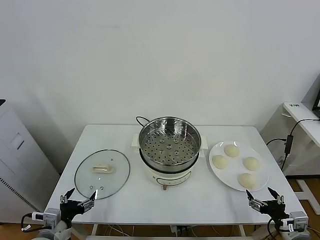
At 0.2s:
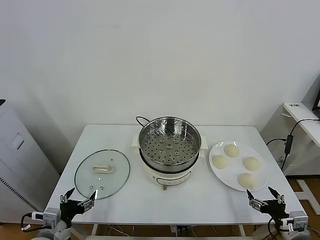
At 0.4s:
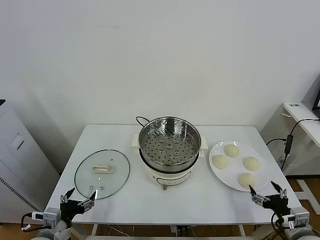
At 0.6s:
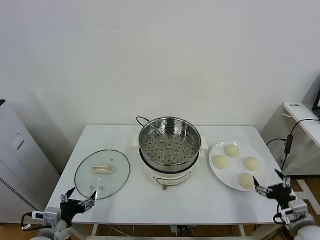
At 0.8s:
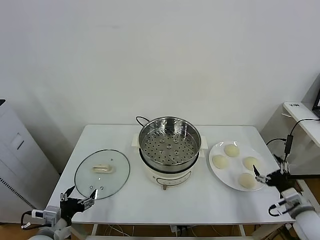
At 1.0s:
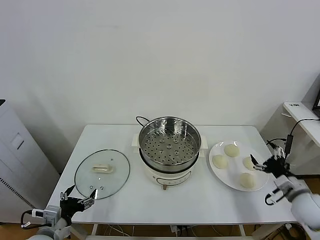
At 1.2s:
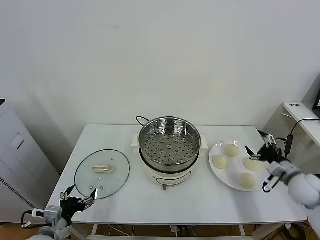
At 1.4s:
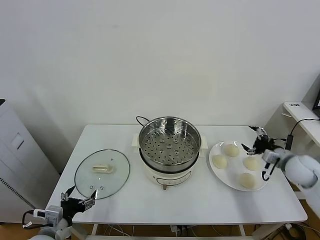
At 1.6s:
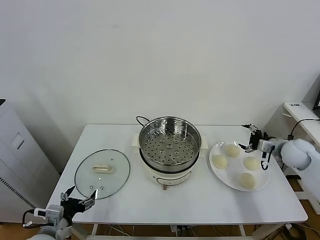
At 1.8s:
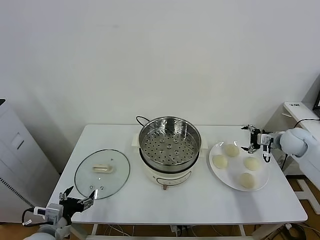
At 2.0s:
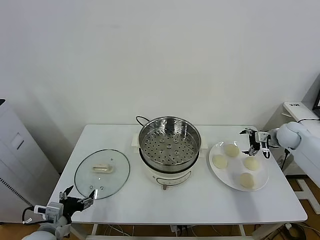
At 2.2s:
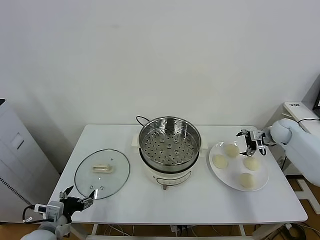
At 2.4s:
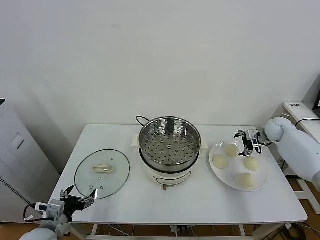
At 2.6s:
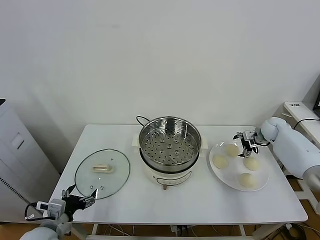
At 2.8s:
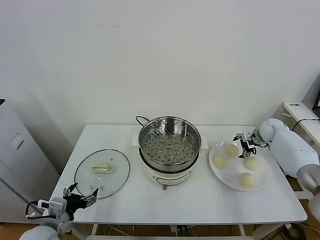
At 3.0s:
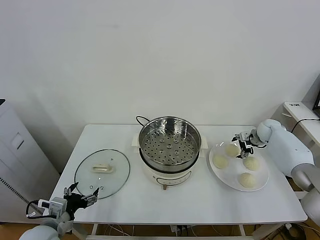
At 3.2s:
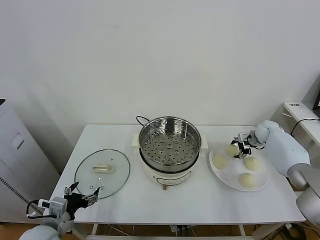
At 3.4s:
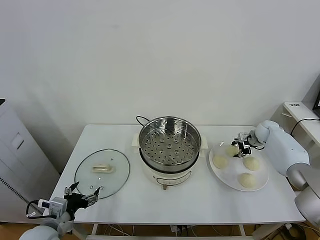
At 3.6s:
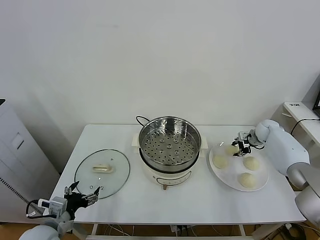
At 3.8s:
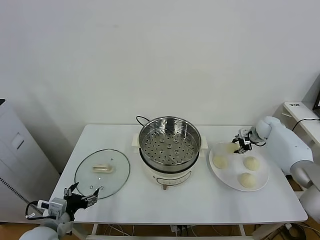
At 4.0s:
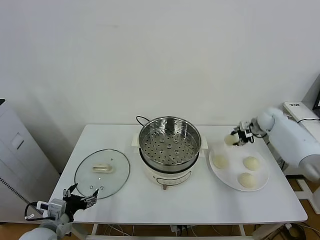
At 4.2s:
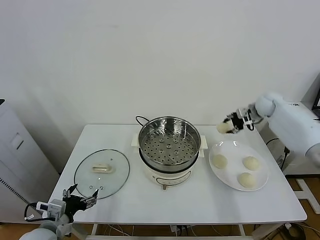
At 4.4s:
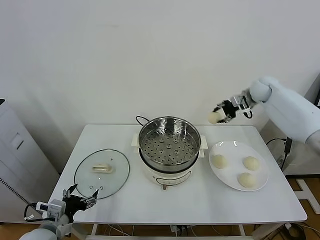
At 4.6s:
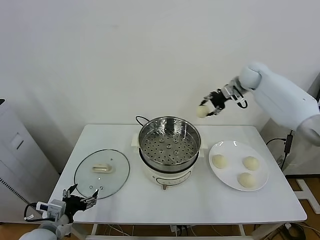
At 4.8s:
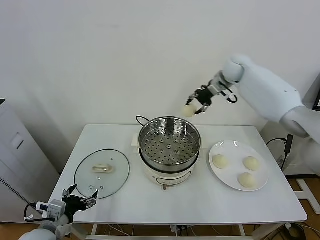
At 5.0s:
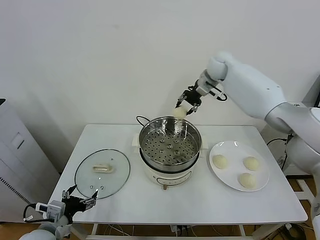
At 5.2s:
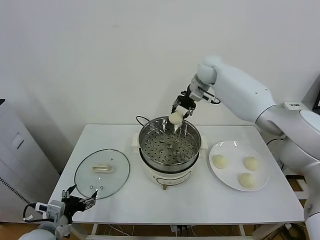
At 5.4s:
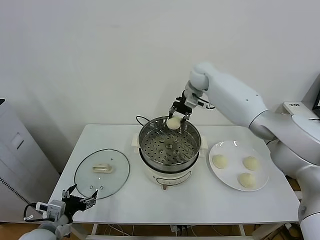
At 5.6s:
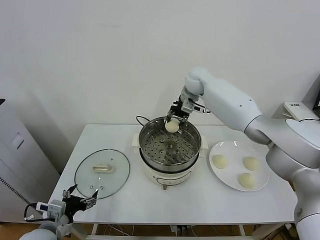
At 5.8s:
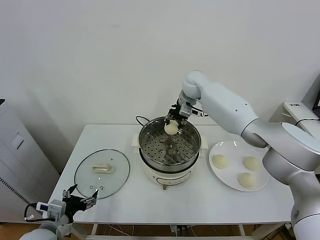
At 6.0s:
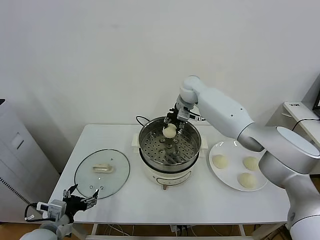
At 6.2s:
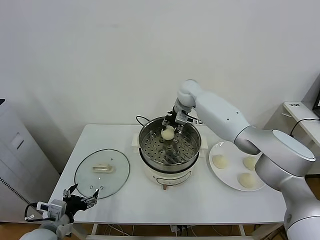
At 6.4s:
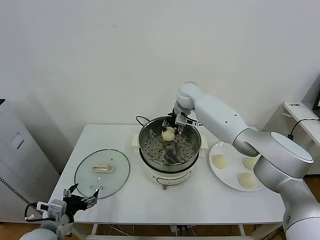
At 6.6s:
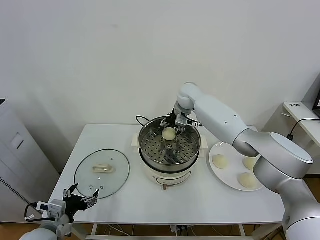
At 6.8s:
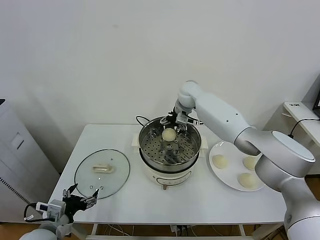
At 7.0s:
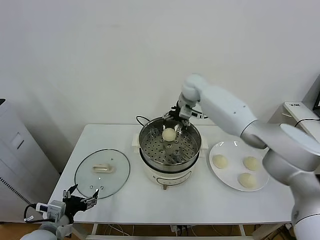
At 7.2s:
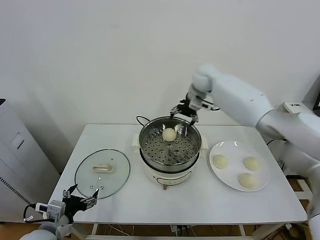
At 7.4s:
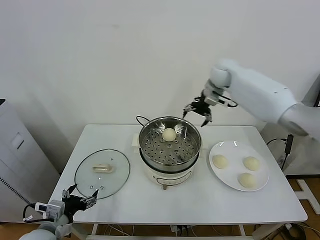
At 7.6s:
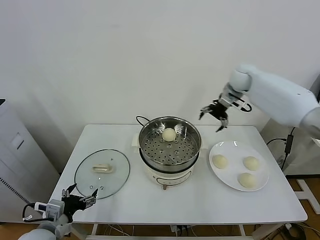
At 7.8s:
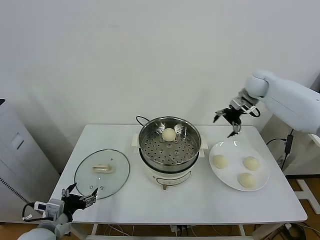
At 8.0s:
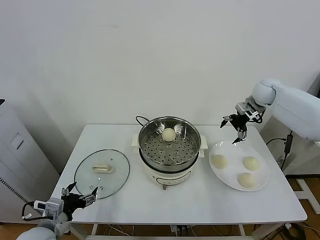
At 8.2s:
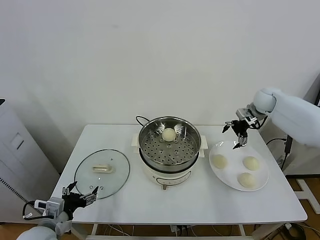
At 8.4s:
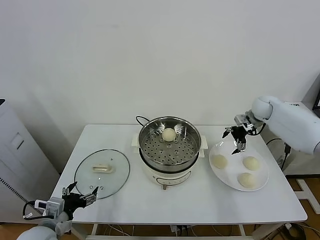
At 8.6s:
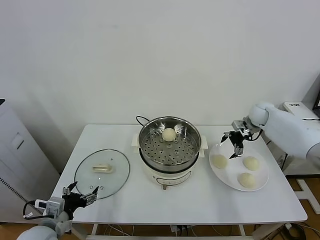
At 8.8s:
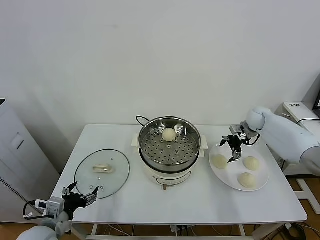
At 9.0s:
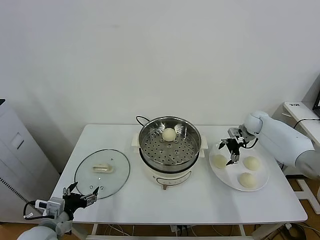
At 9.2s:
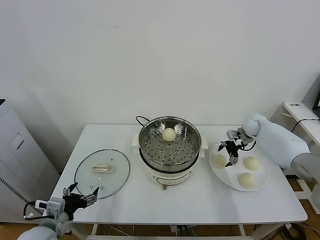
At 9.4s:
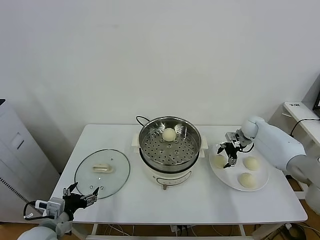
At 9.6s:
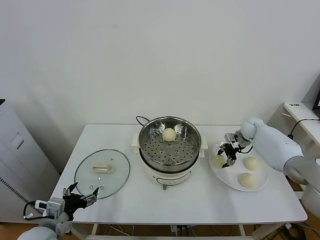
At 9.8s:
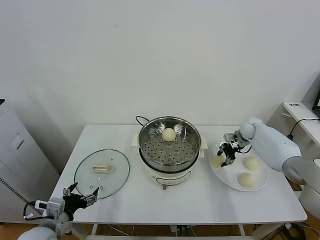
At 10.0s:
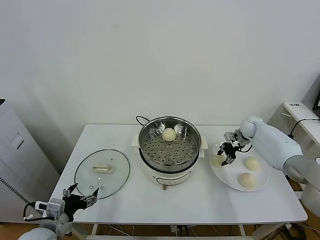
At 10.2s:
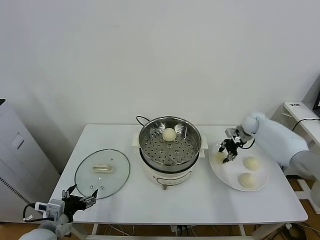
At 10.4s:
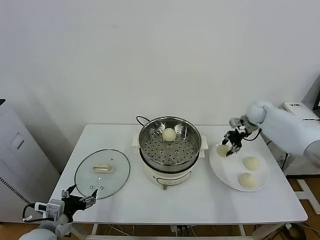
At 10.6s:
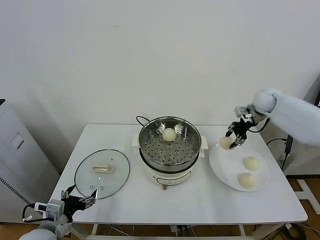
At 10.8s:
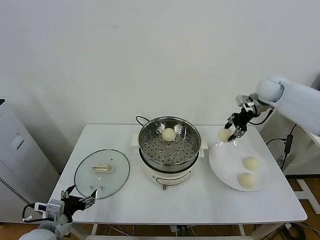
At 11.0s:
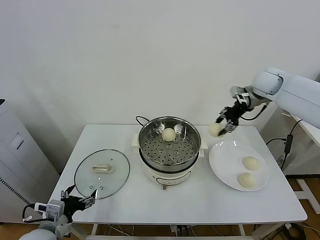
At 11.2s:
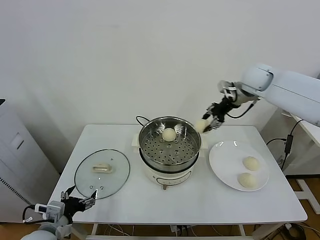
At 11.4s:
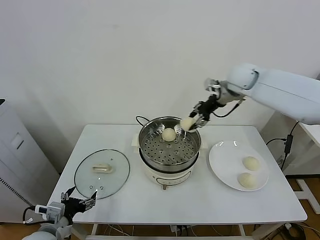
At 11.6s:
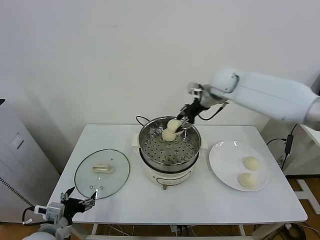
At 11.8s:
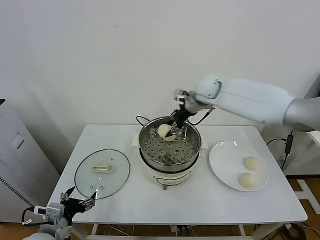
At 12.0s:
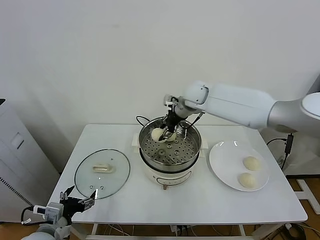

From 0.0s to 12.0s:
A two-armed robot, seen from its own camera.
Task of the whole recording: take steamed baozi put them in steamer.
Step, from 0.0s to 3.2s: Grasp the baozi in the plate with right gripper.
Step, from 3.4s to 6.8s: Place the baozi on the steamer with right gripper.
Step, from 7.0s to 9.4s: Grasp the baozi in the plate with right gripper.
From 1.6s to 3.0s: The right gripper goes approximately 15 cm forward and downward, and closes up.
From 3.0s to 4.4s: The right gripper moves upward and to the left, some 25 cm, and closes its fingers.
From 4.4s to 6.0s: The right gripper is displaced to the left by about 20 cm.
From 6.0s to 7.6s: The right gripper moves to the right, approximately 25 cm, and opens its fingers.
From 7.6s to 9.0s: The right gripper heads downward, covering roughly 20 cm.
From 9.0s to 10.4s: The right gripper moves upward, some 10 cm, and closes its fingers.
From 10.4s to 12.0s: The right gripper shifts roughly 30 cm to the left.

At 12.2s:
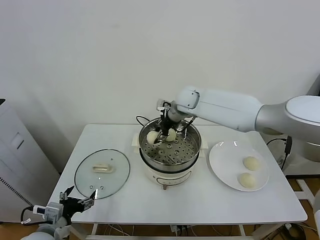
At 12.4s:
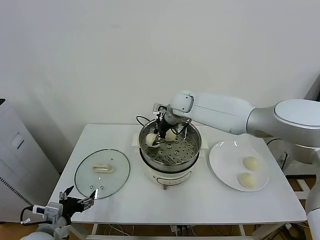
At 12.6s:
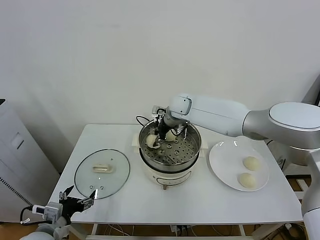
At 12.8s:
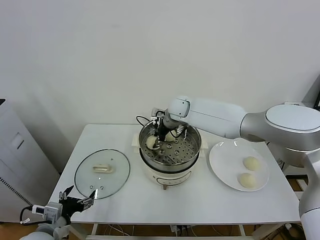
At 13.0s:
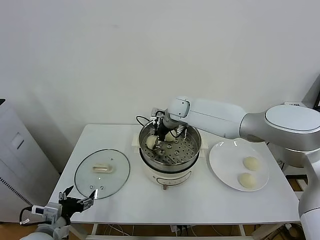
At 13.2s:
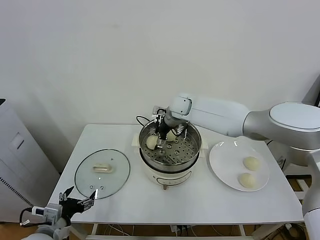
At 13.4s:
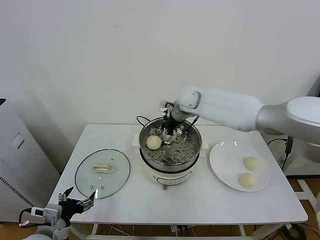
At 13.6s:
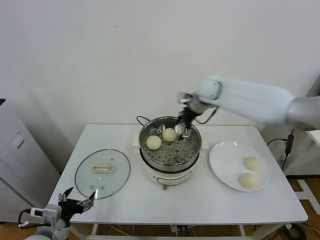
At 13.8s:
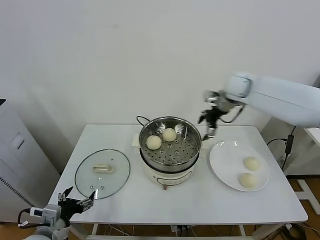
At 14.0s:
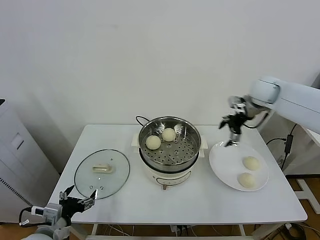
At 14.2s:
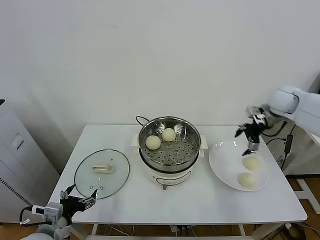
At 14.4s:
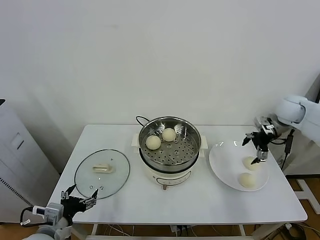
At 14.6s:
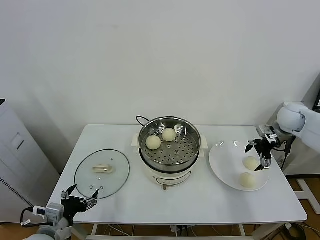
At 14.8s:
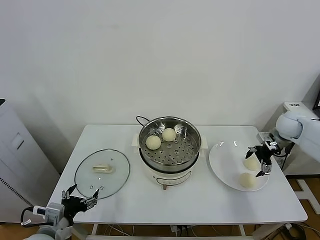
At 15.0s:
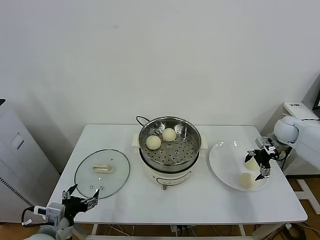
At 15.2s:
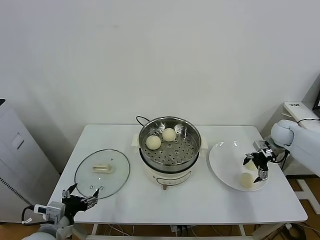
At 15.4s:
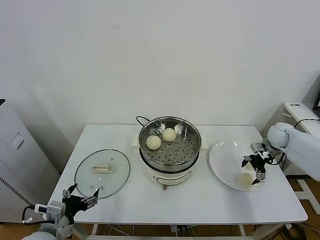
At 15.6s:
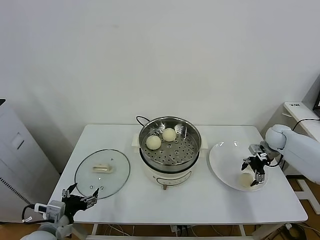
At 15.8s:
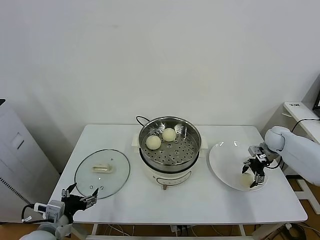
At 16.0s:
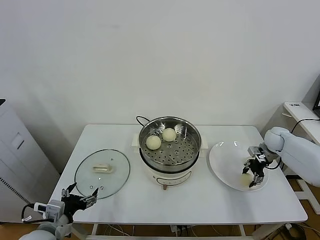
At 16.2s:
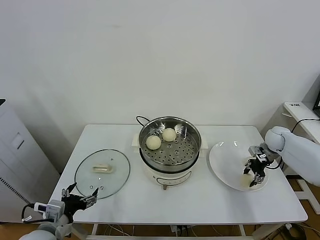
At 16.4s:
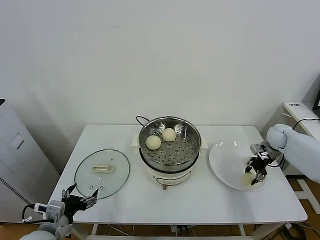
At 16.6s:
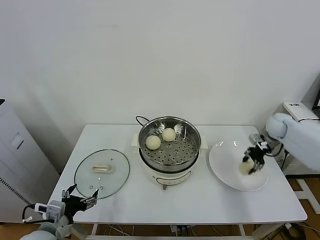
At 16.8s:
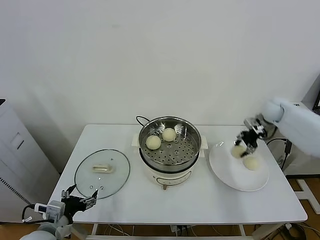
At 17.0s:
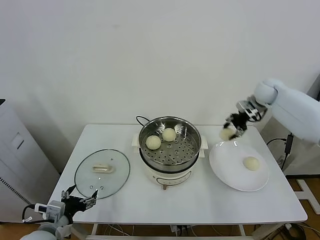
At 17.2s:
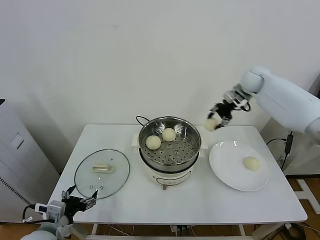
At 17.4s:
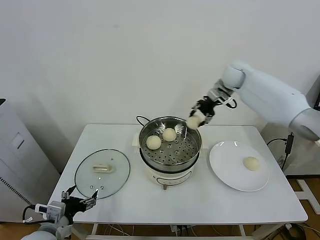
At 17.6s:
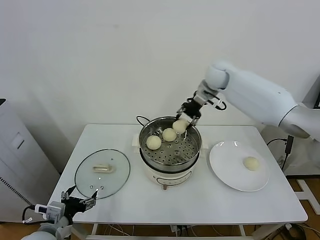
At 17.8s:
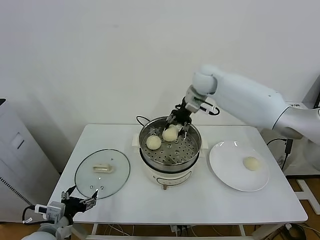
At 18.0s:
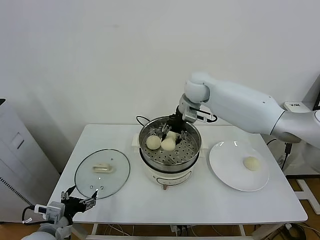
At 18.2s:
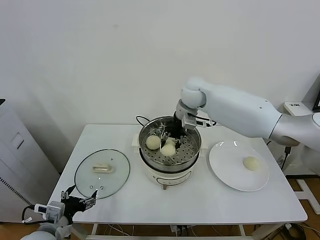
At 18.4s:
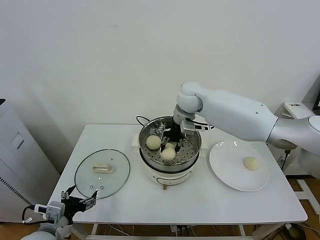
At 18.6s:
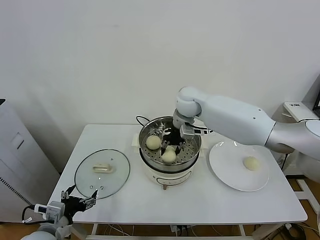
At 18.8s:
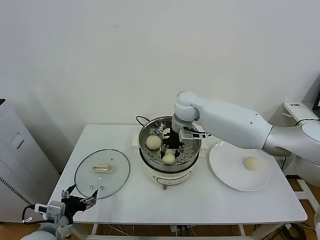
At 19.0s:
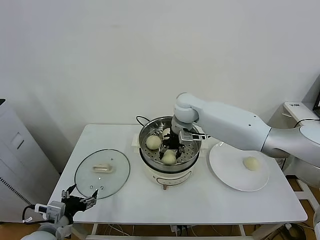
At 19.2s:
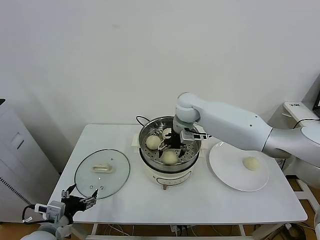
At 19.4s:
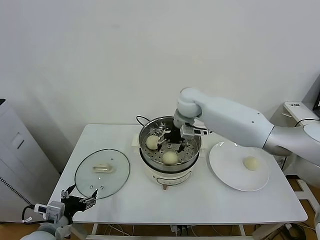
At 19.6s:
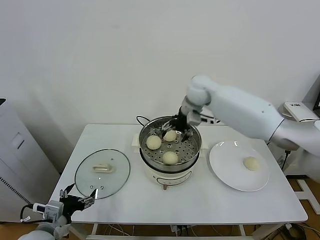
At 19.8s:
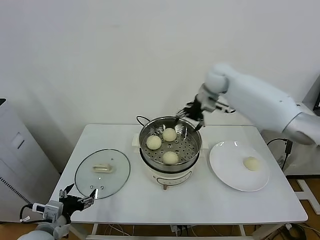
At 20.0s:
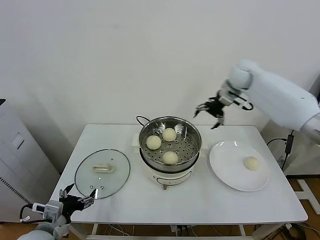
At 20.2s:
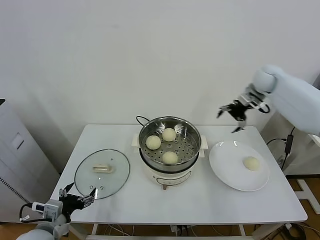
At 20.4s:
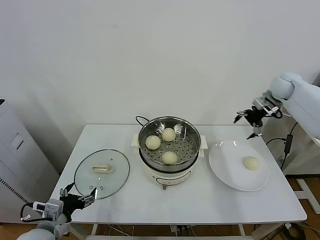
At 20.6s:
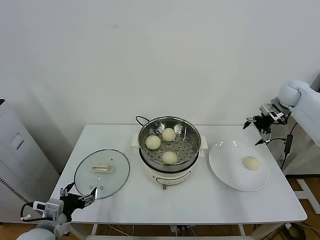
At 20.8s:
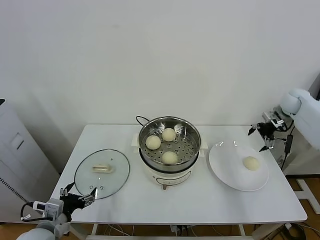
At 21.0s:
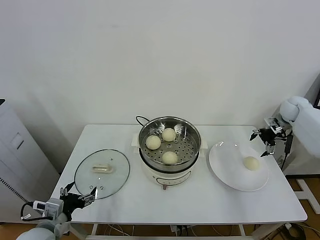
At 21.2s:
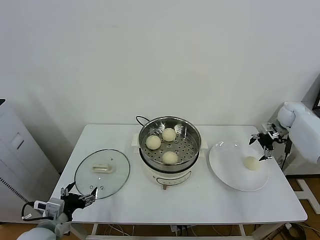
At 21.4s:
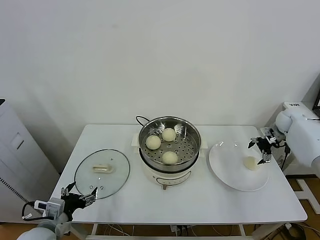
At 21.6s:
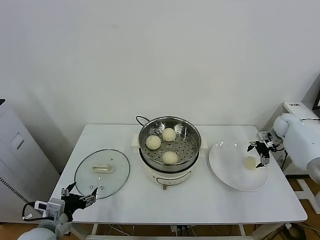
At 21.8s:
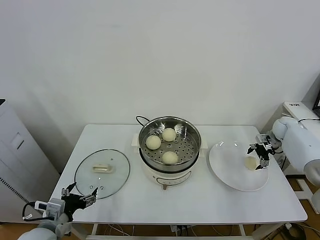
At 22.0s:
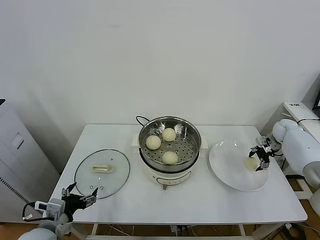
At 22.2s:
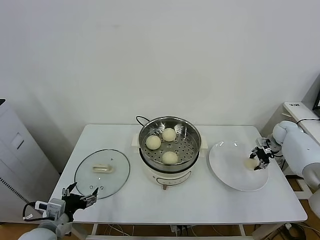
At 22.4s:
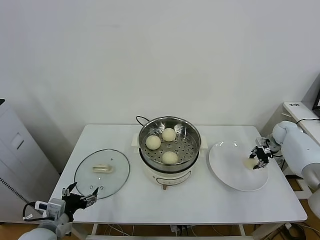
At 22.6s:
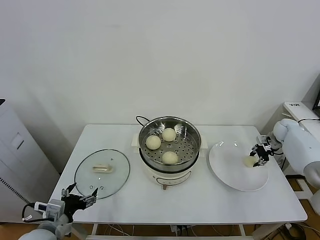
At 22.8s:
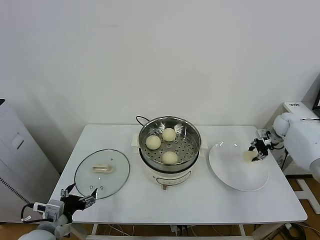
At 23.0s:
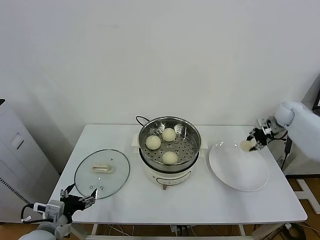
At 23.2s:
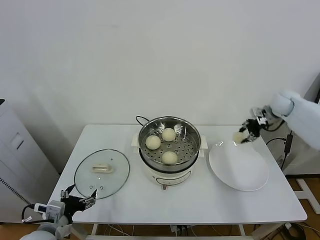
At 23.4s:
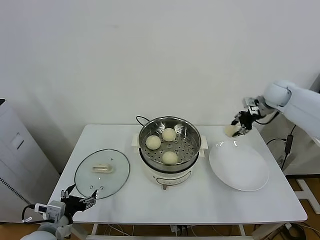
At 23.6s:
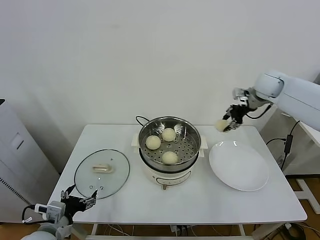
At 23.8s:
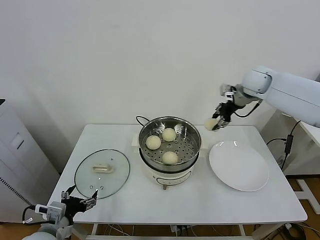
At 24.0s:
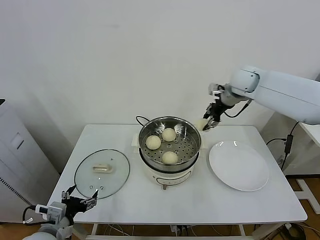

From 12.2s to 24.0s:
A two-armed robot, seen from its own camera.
Task of the whole recording: take steamed baozi put them in steamer.
Step, from 13.4s to 16.0s: Grasp the baozi in the plate with right gripper.
Step, from 16.2s to 19.2s: Place the baozi on the steamer with right gripper.
Step, from 19.4s to 22.2s: Grasp the baozi in the plate with right gripper.
From 12.2s to 13.6s: The right gripper travels to the right and upward by approximately 15 cm, and opens up.
From 13.6s to 15.2s: The right gripper is displaced to the right and downward by about 30 cm.
From 15.2s to 16.6s: The right gripper shifts roughly 5 cm upward, and closes up.
From 16.6s to 18.2s: The right gripper shifts about 35 cm to the left.
From 18.2s to 19.6s: The right gripper ends up approximately 5 cm from where it was, and opens its fingers.
From 19.6s to 21.0s: The right gripper travels to the right by about 35 cm.
From 21.0s to 22.6s: The right gripper moves downward, roughly 10 cm, and closes.
From 22.6s to 24.0s: The right gripper travels to the left and upward by some 35 cm.
